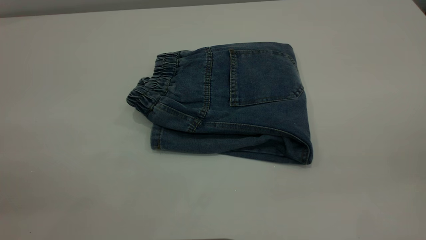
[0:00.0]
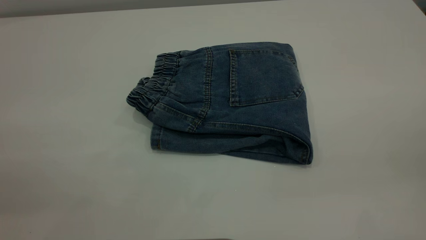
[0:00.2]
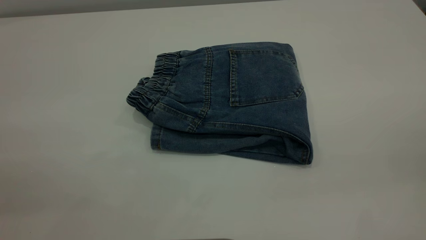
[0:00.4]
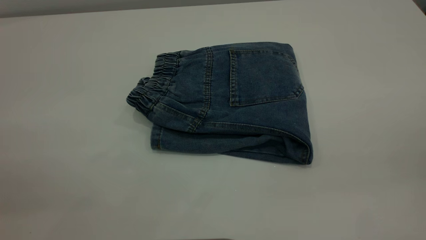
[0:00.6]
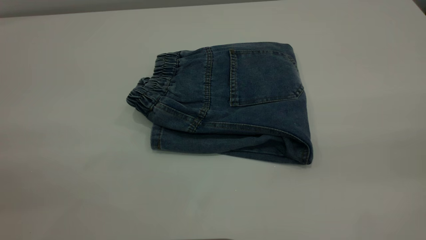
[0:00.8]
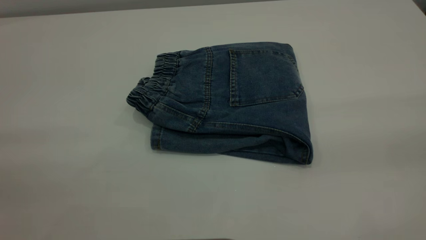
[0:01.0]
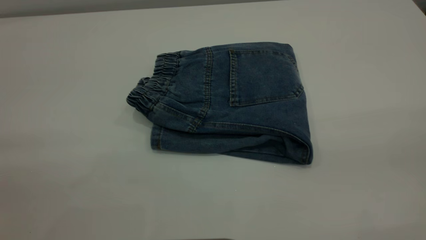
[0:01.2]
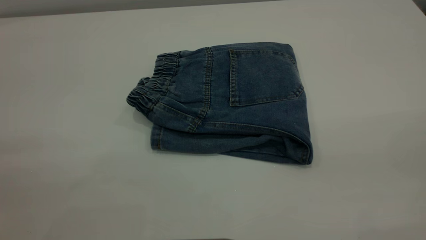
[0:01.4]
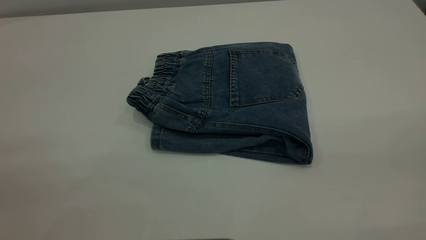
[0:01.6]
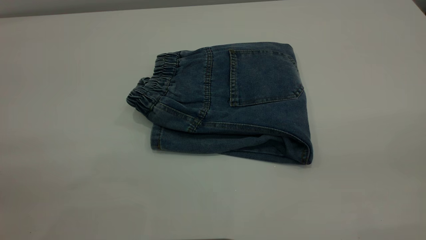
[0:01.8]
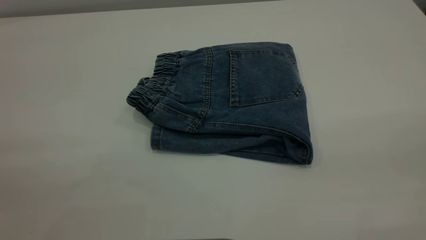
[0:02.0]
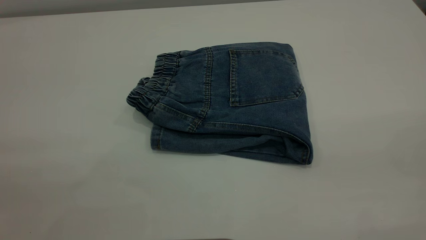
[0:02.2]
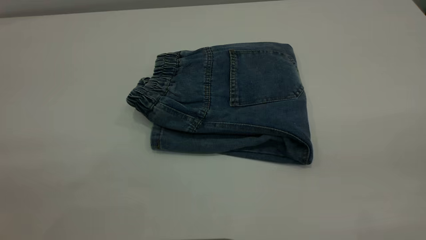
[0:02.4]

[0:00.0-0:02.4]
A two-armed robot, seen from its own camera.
0:01.2 to 0:02.4: The two grippers keep their place.

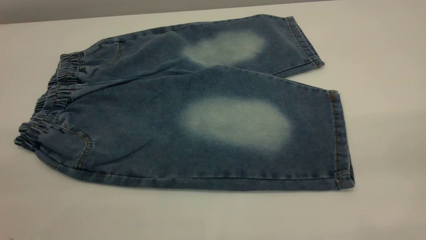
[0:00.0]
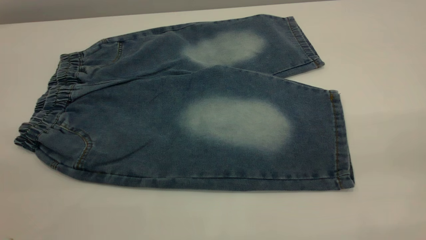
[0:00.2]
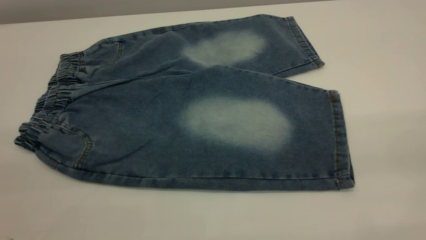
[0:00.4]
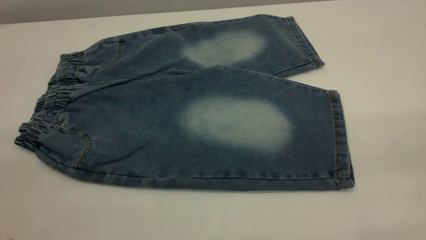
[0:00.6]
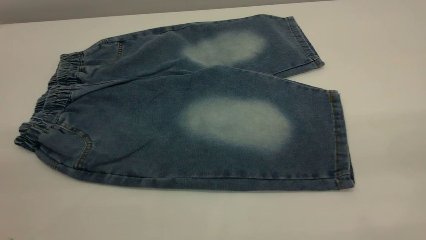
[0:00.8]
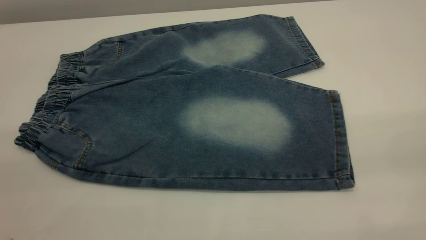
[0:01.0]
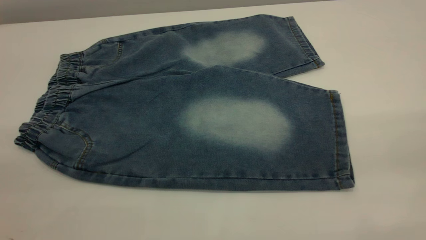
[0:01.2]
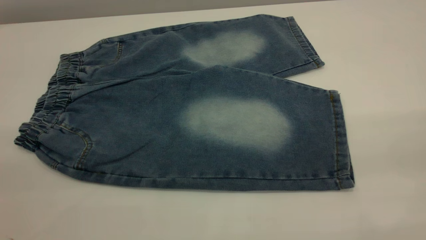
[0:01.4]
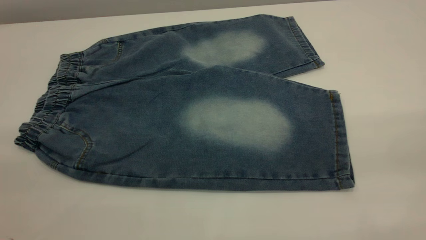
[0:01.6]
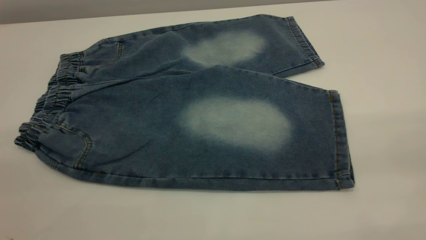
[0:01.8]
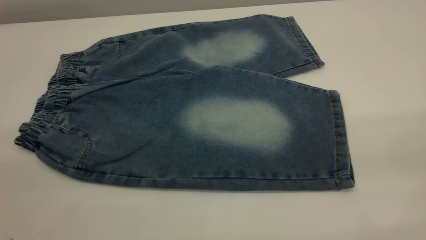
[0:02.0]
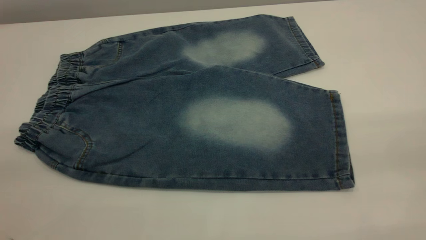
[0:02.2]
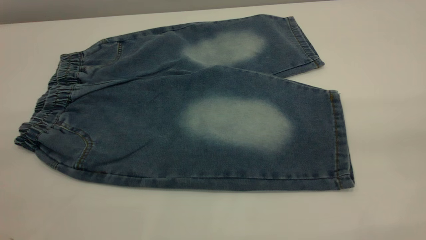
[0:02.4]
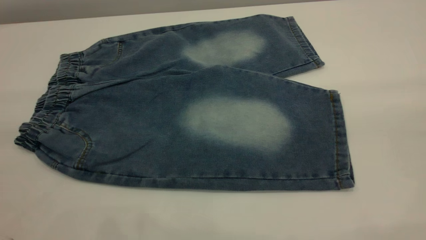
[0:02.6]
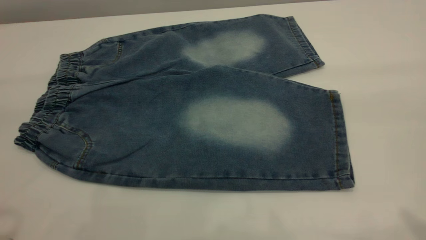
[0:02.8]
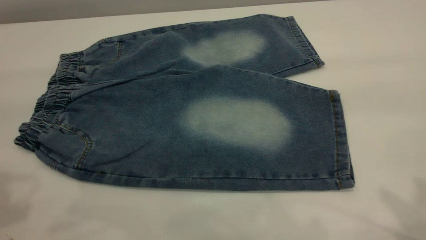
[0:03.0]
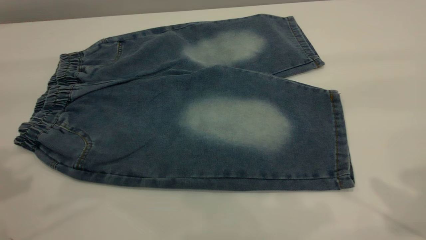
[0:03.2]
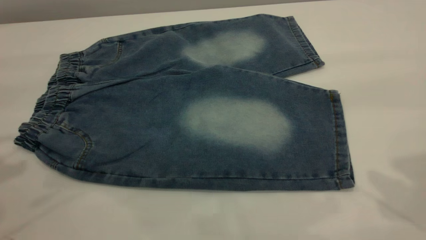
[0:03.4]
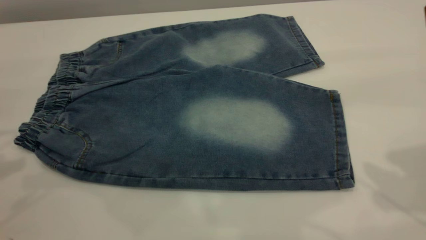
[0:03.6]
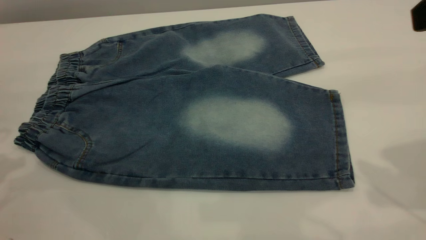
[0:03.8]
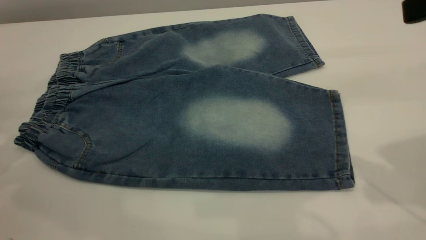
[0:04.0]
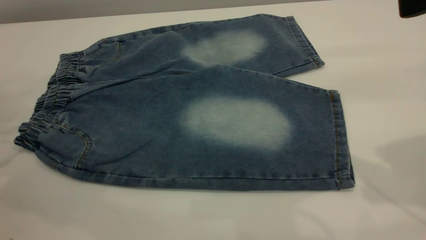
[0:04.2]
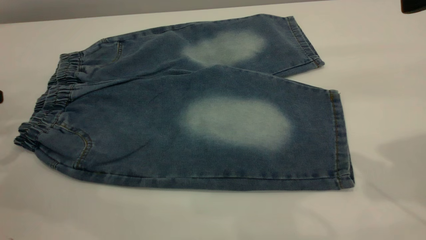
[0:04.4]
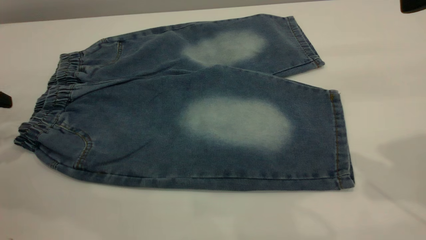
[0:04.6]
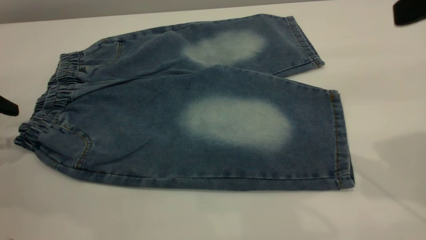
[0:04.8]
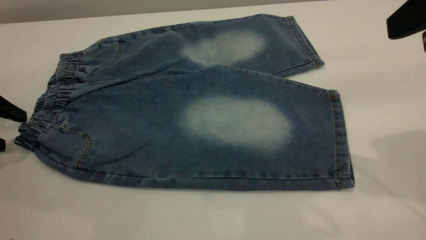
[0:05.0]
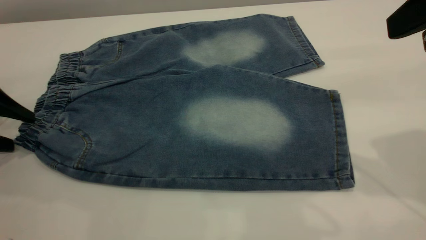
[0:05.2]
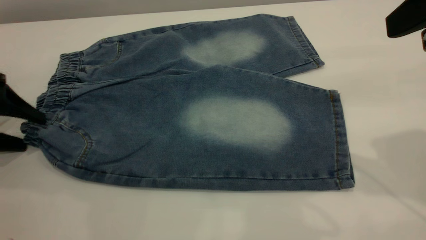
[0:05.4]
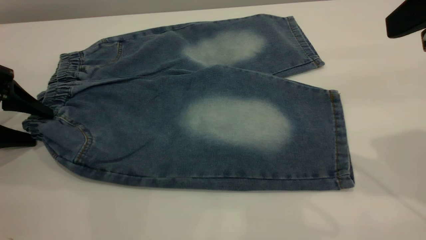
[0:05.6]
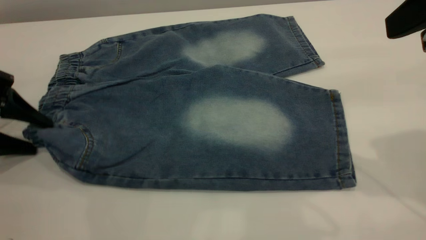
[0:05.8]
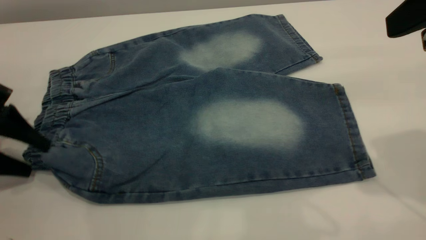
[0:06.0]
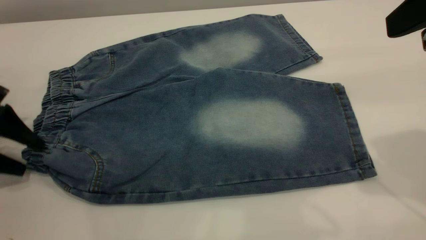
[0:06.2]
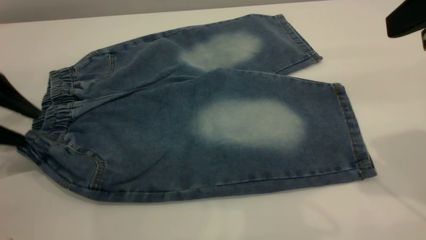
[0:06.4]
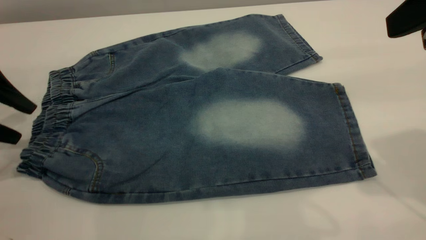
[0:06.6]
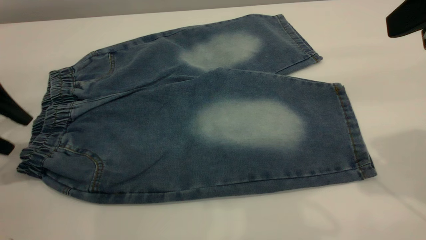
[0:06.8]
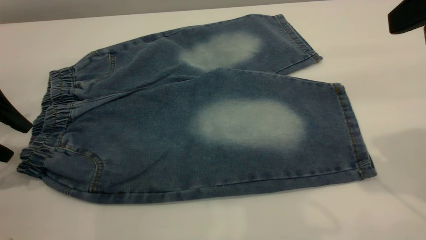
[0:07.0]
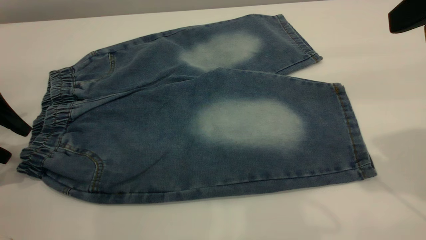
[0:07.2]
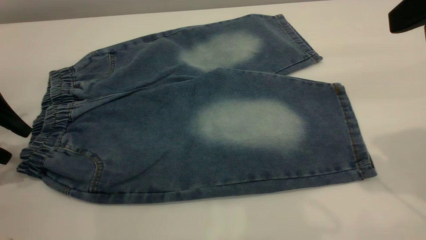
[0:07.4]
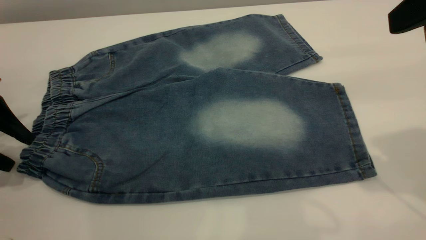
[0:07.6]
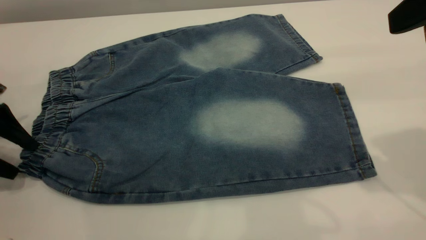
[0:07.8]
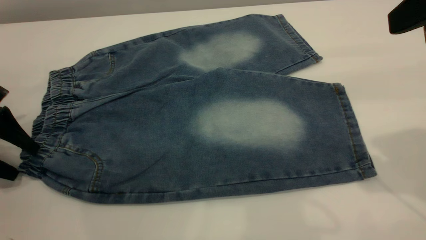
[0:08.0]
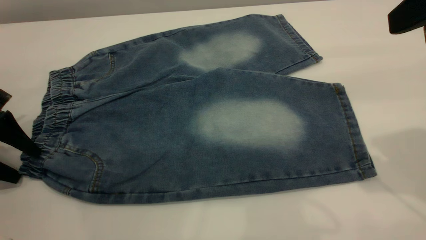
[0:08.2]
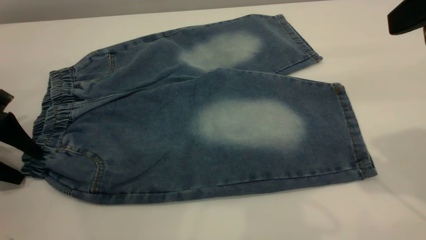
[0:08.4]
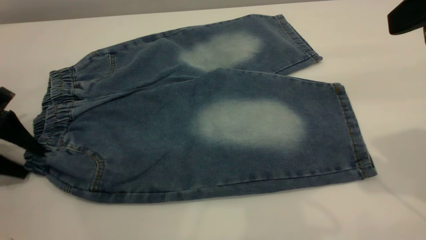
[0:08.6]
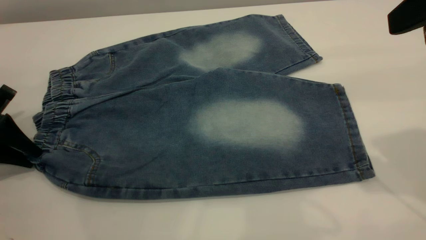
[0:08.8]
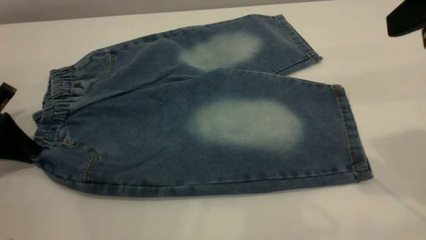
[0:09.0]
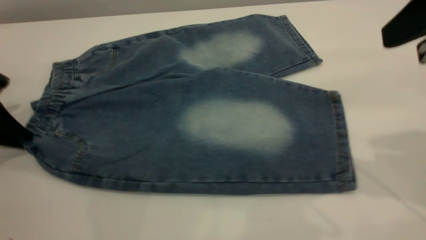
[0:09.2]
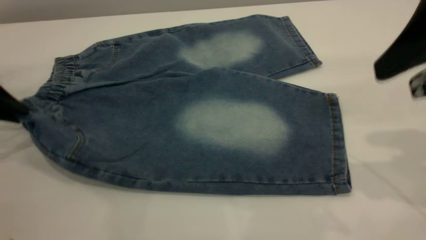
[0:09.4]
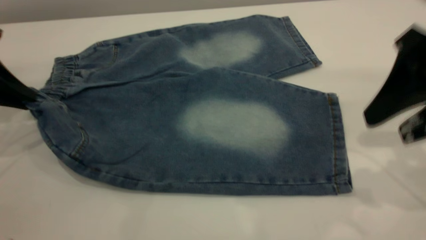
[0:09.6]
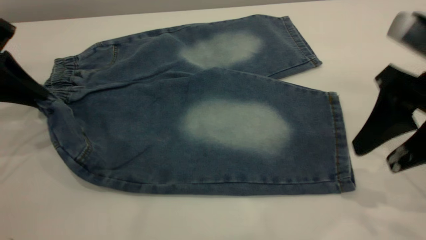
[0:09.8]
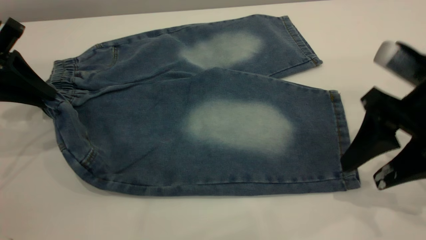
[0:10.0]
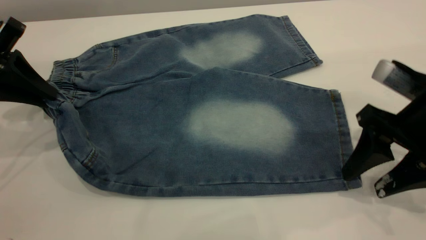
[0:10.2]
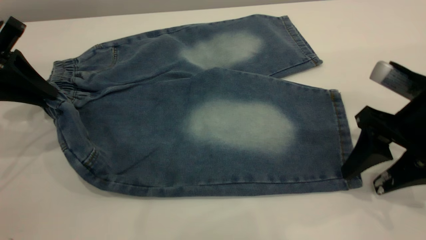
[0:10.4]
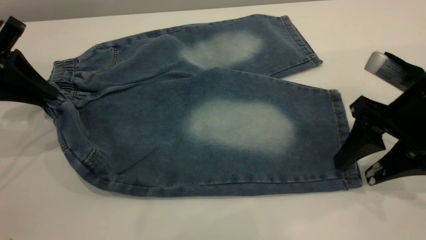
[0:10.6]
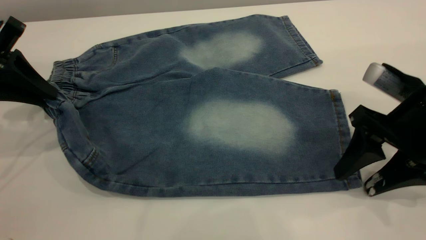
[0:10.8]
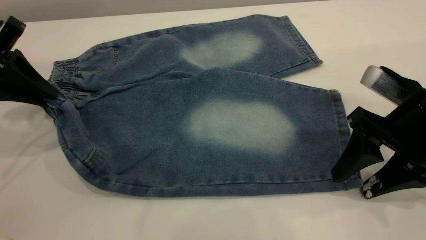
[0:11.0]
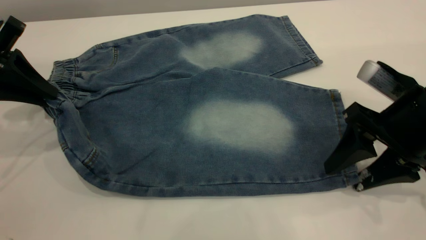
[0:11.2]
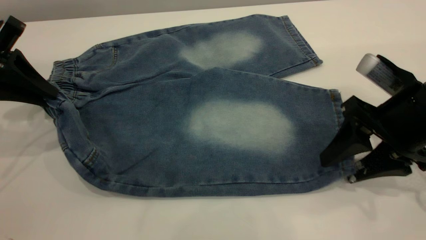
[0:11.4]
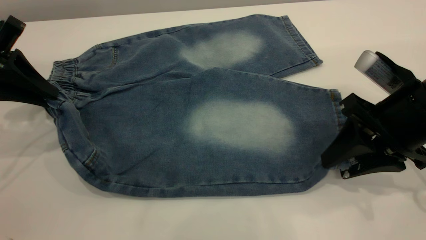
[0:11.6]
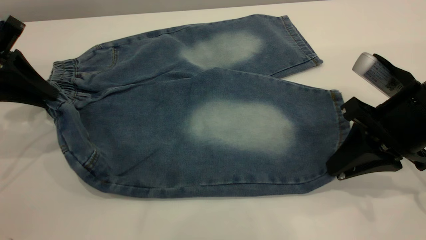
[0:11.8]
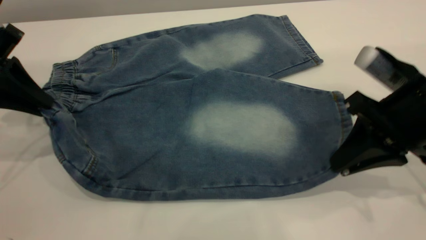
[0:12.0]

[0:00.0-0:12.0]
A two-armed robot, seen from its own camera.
0:00.0 to 0:01.6: Both grippers stay put.
0:04.4 to 0:06.0: The left gripper moves downward, approximately 5 cm.
0:06.0 to 0:07.6: There are only small adjustments of the grippers.
0:07.6 to 0:09.0: The left gripper closes.
0:09.0 to 0:10.4: The left gripper heads upward and to the right, covering about 10 cm, while the right gripper is displaced downward by about 15 cm.
0:10.4 to 0:12.0: The right gripper closes.

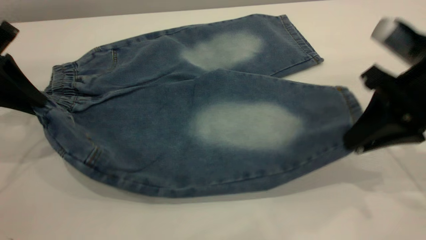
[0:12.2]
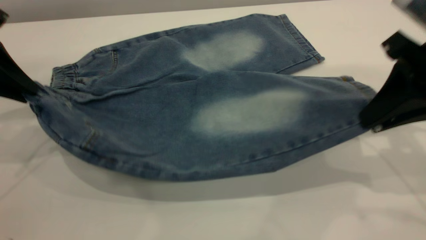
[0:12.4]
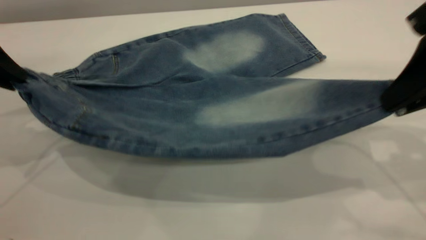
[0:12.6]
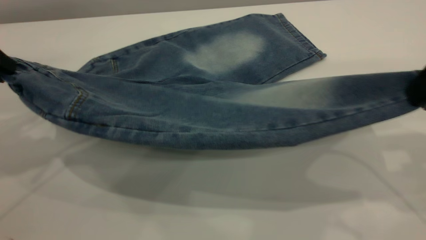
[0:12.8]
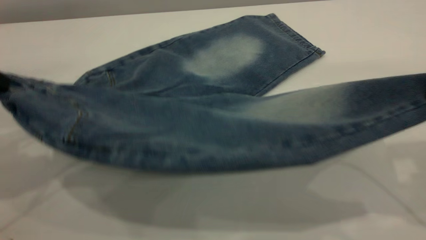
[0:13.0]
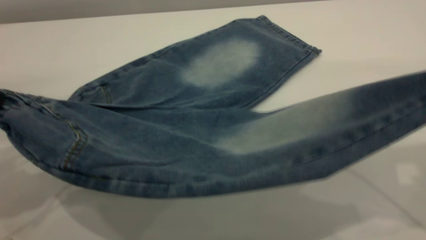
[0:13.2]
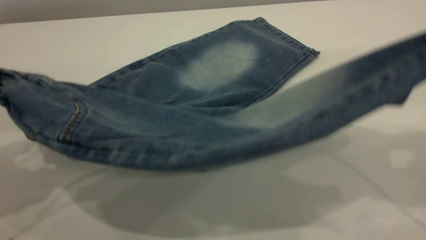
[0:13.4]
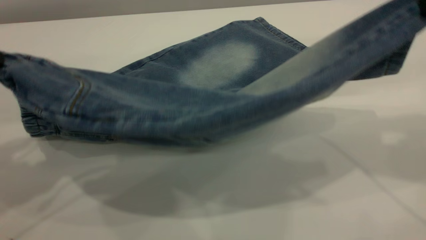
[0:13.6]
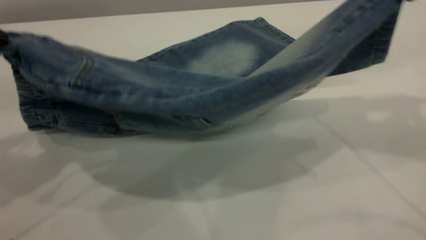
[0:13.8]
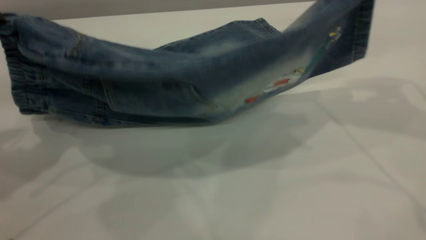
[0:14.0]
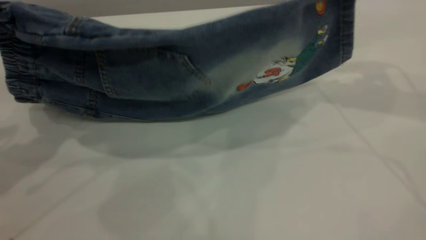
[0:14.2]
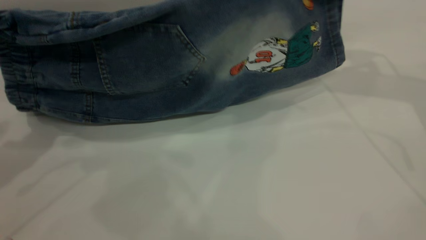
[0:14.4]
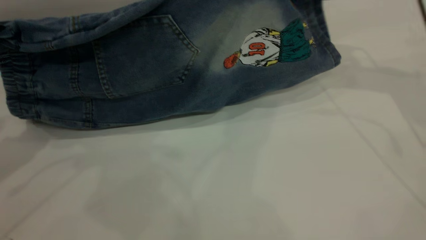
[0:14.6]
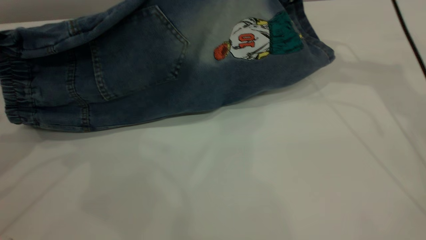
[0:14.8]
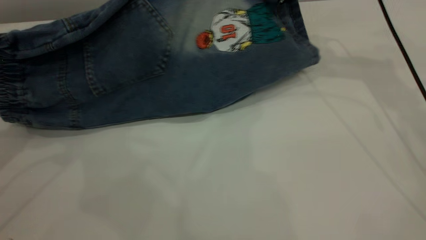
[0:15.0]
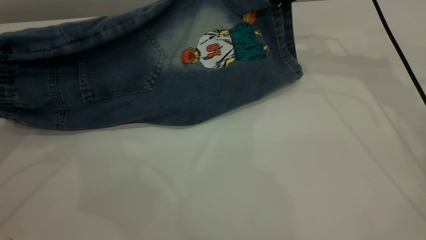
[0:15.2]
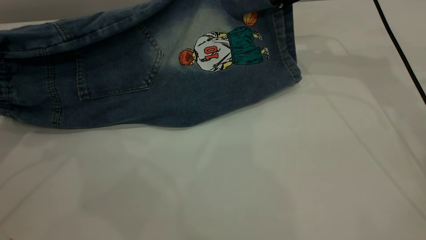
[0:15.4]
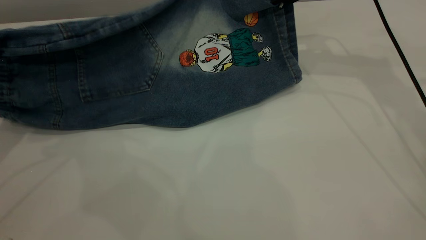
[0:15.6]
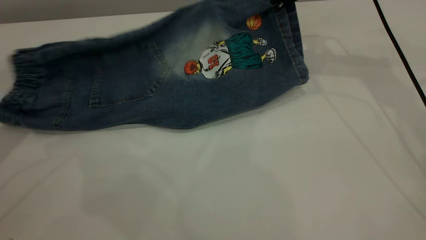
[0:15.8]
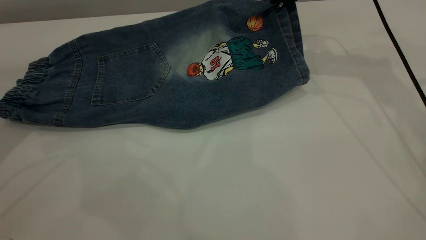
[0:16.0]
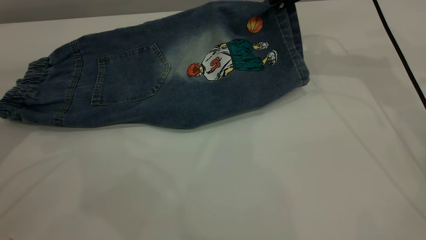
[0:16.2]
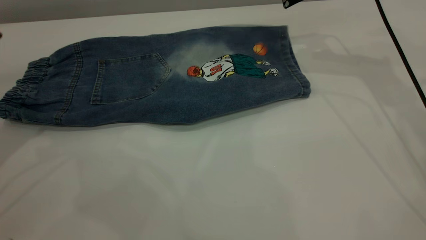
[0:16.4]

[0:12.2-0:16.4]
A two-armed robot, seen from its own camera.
0:12.2 to 0:13.6: The left gripper heads upward and backward, covering about 10 cm. The right gripper heads upward, covering approximately 15 cm.
0:13.6 to 0:15.0: The right gripper heads forward and downward, covering roughly 25 cm. The left gripper shifts approximately 5 cm forward.
0:15.0 to 0:16.4: The left gripper opens up; the right gripper opens up.
